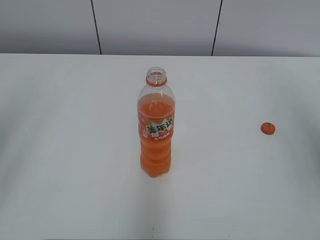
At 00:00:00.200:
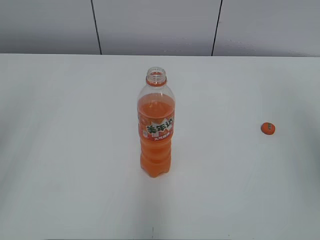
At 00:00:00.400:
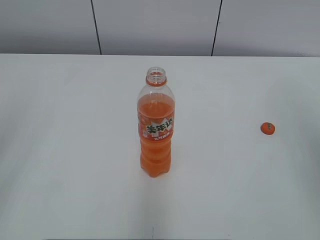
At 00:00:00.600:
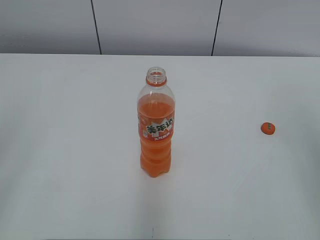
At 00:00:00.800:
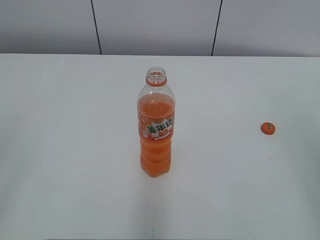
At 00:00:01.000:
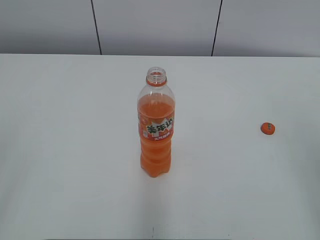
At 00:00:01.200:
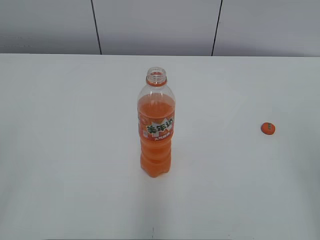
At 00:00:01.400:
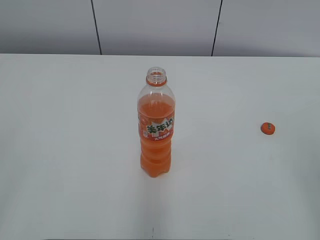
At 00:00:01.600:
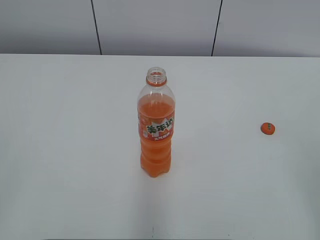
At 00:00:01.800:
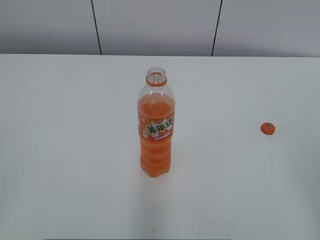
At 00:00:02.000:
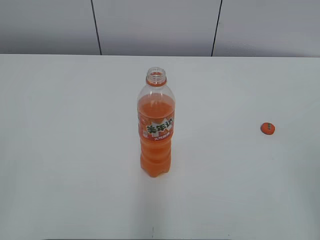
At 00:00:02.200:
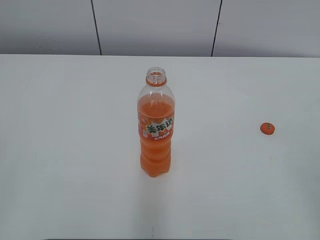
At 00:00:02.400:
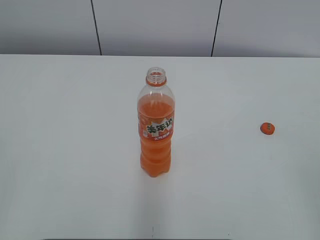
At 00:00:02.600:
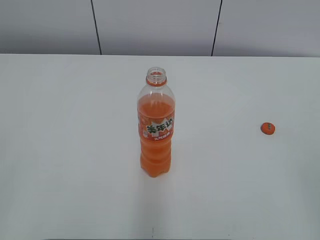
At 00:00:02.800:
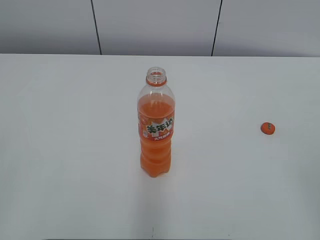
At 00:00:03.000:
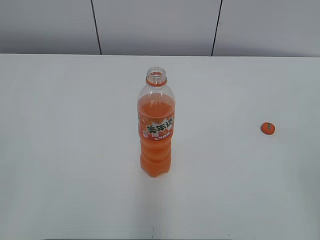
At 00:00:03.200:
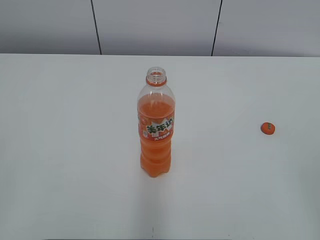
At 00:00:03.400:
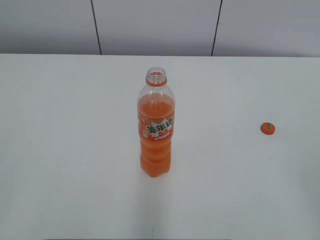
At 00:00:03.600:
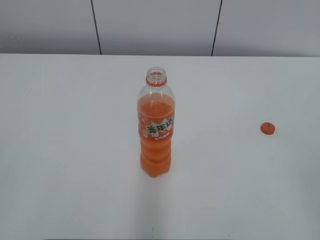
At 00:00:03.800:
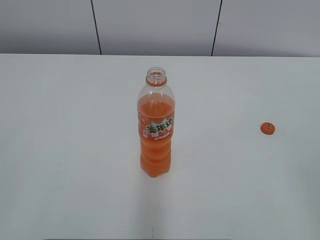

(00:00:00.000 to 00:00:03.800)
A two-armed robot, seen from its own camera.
00:00:02.600 - 00:00:03.800: Both grippers stay put.
